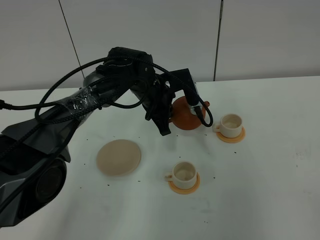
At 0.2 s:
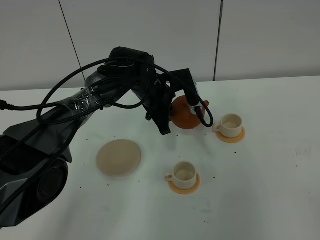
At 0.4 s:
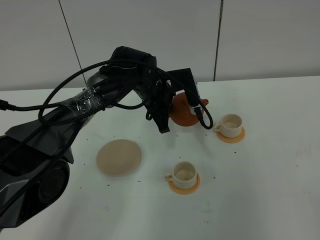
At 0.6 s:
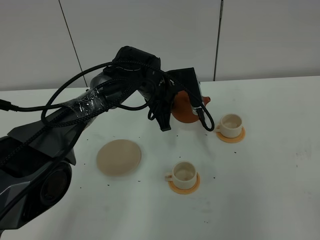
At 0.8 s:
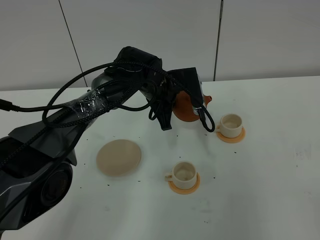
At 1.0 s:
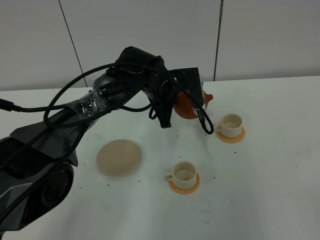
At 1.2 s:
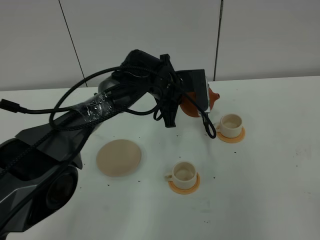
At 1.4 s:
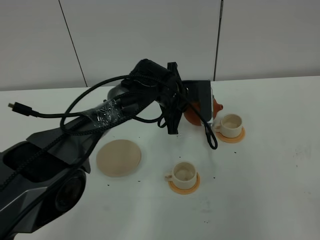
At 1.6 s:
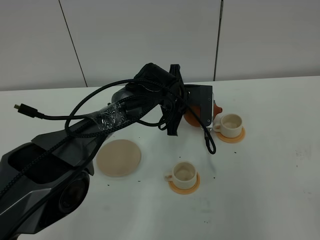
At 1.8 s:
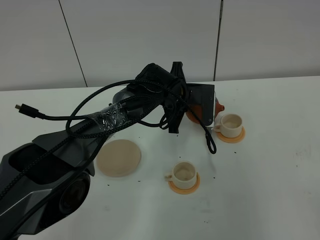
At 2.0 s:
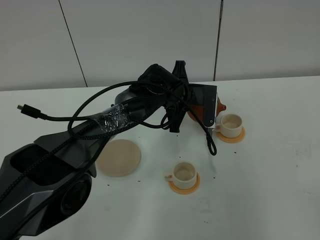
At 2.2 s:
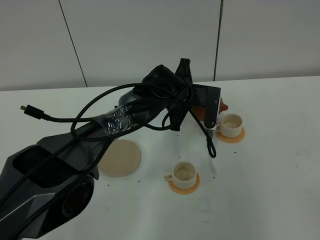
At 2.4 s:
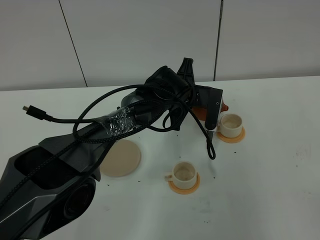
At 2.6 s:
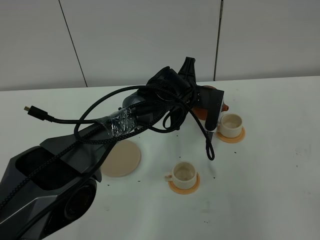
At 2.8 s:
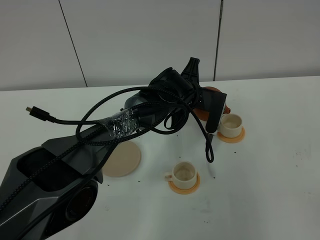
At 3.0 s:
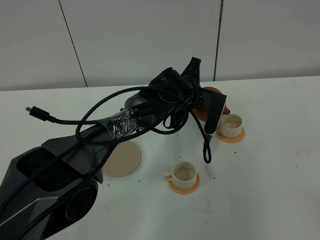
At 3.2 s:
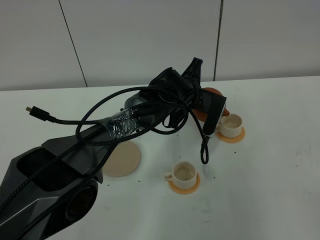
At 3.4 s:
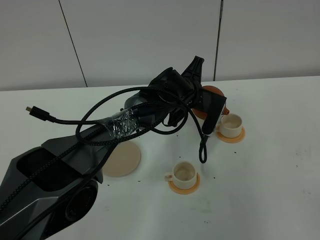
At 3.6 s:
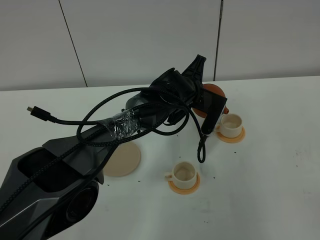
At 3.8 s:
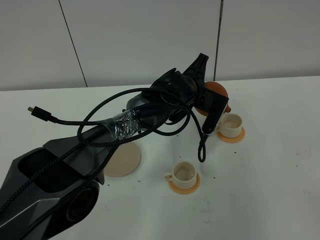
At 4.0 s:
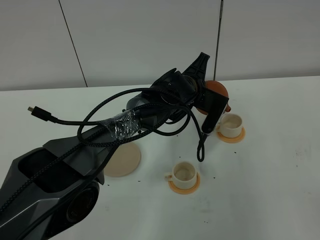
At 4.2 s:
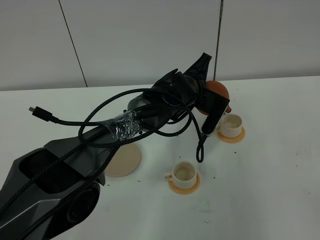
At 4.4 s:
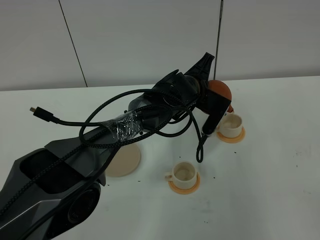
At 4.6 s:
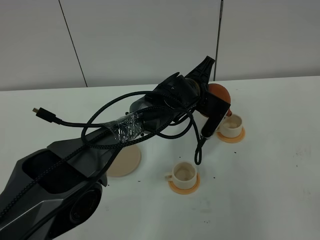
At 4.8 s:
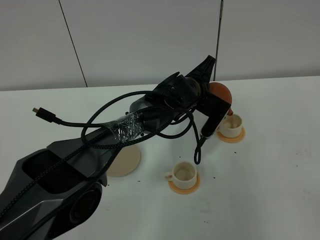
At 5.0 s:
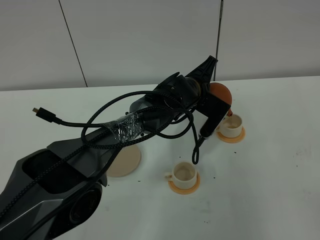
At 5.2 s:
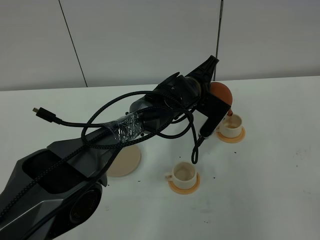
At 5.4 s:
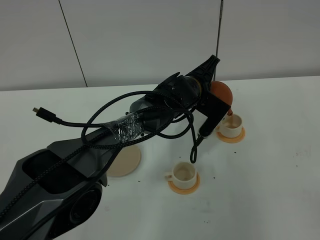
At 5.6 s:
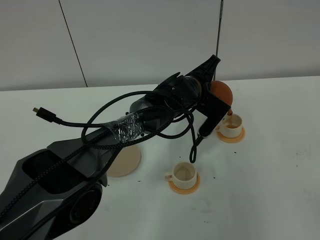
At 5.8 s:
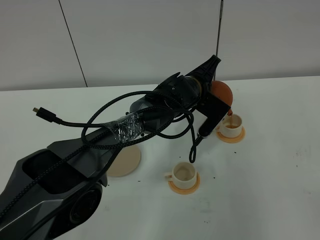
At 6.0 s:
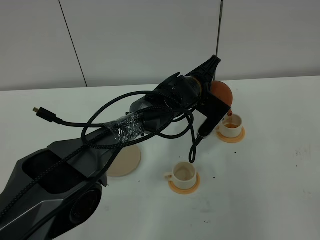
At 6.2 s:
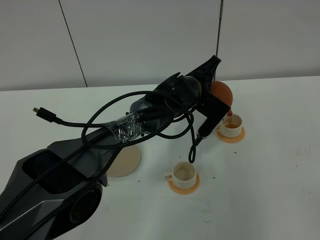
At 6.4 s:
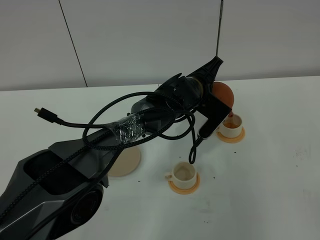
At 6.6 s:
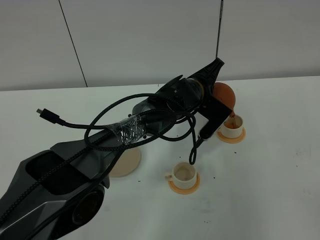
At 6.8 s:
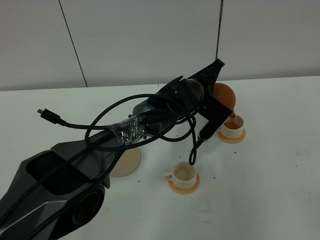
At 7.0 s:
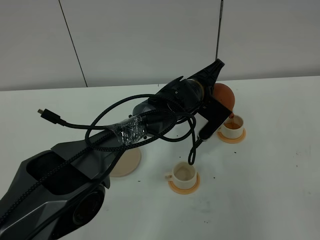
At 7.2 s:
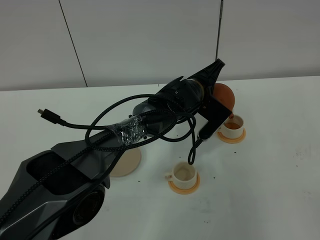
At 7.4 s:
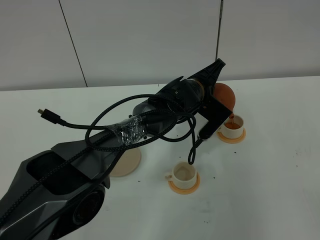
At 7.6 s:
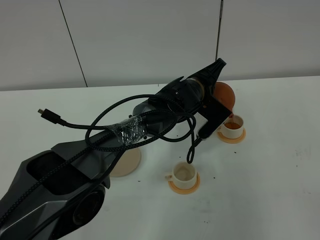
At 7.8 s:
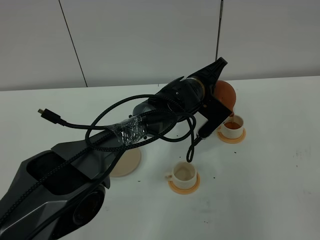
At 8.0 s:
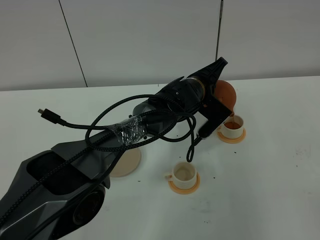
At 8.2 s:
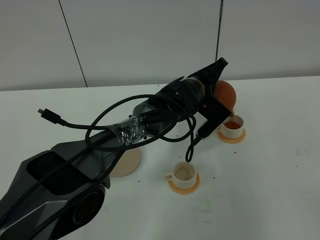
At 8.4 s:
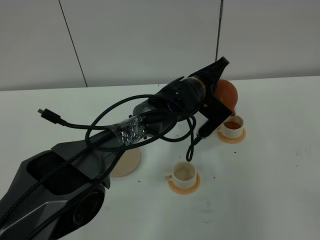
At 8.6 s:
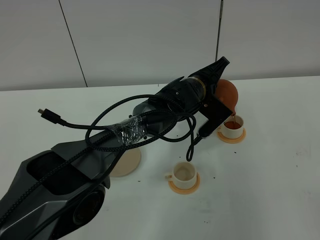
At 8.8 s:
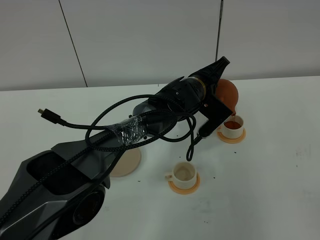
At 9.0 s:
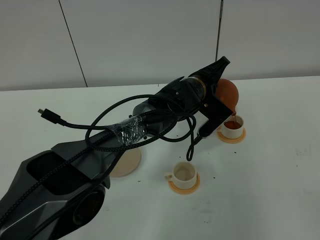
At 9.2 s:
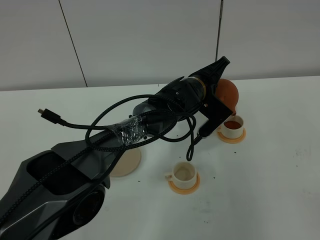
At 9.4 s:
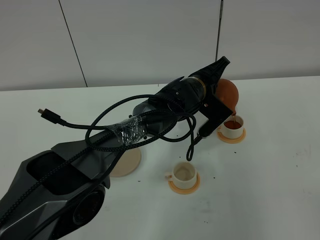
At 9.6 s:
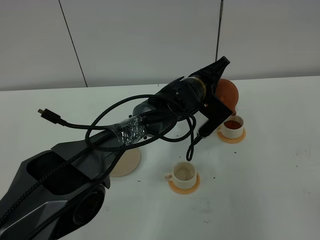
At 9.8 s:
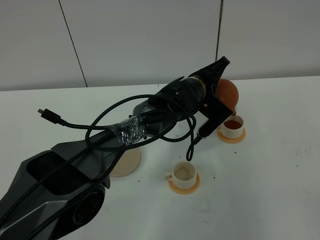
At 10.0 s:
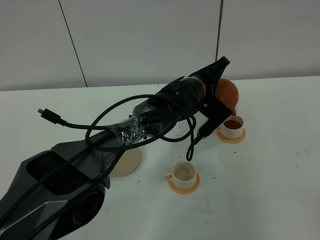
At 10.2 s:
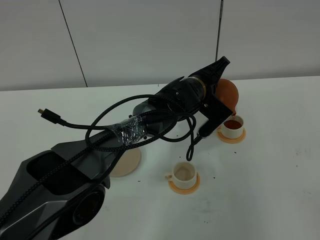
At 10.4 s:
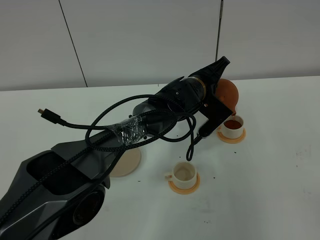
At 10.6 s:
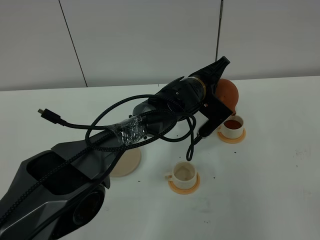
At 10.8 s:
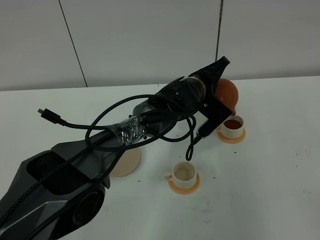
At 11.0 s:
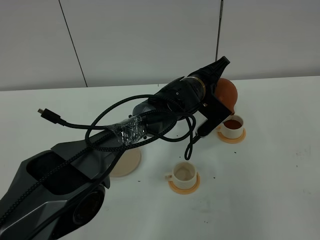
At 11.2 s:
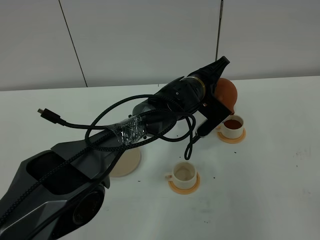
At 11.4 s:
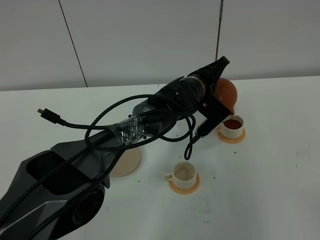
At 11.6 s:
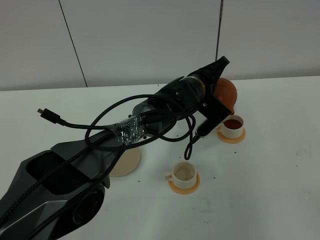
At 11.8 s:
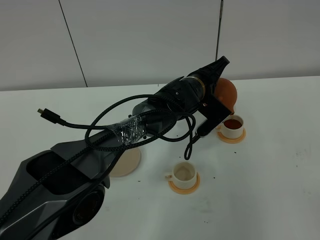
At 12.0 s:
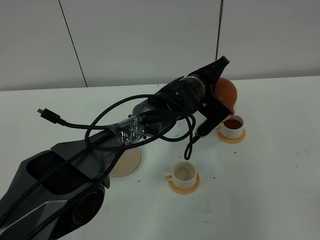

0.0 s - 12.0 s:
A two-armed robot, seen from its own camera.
Task of the whole recording: grasp the brown teapot and pour the tea into the two white teacups one by one, put the brown teapot back in its original place.
3.0 s - 4.4 s: The grippers move only a little.
4.4 s - 7.6 s: There are only small adjustments of the grippers.
7.6 s - 12.0 s: Both grippers stay about where they are.

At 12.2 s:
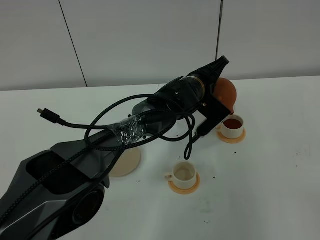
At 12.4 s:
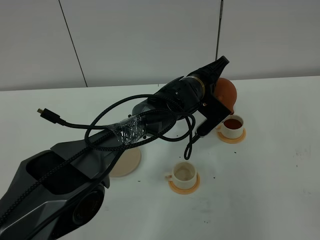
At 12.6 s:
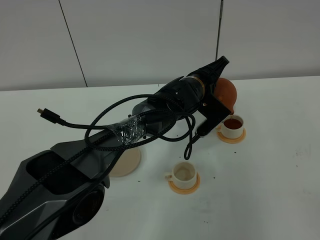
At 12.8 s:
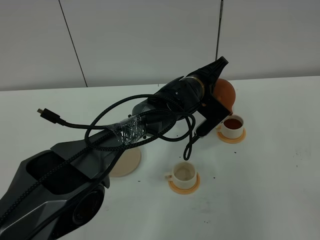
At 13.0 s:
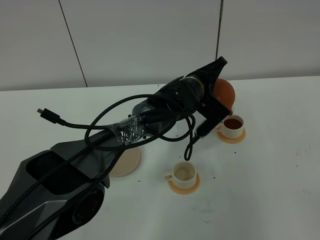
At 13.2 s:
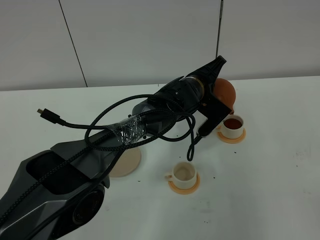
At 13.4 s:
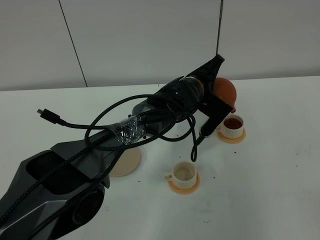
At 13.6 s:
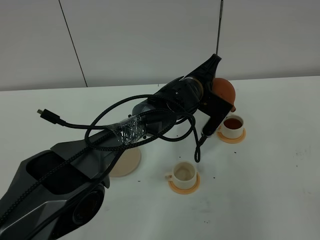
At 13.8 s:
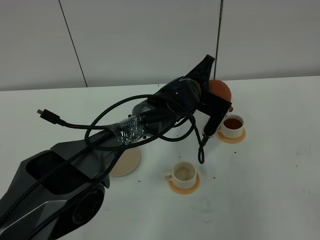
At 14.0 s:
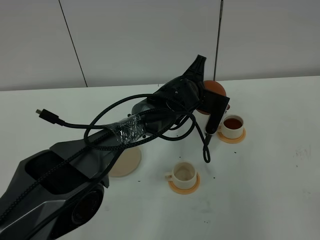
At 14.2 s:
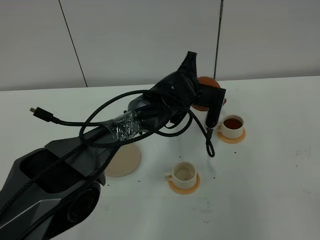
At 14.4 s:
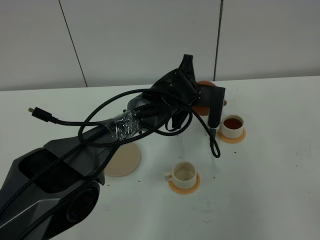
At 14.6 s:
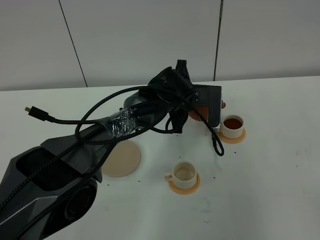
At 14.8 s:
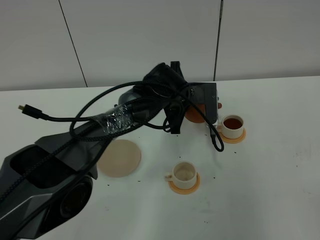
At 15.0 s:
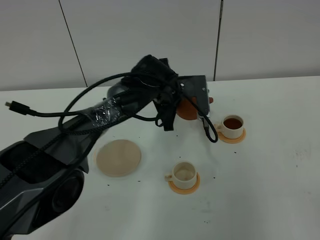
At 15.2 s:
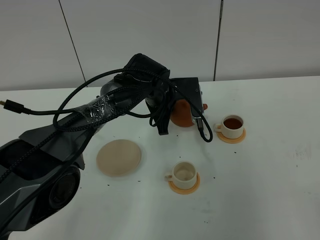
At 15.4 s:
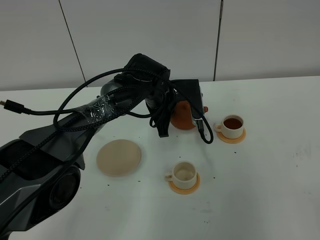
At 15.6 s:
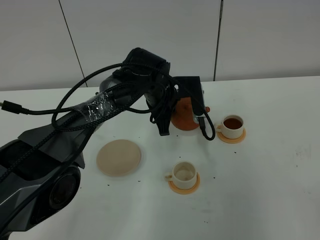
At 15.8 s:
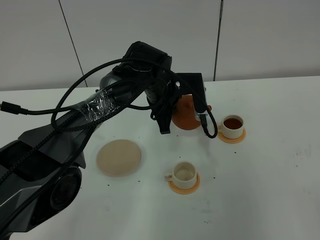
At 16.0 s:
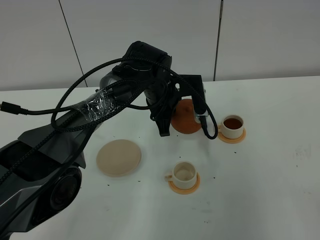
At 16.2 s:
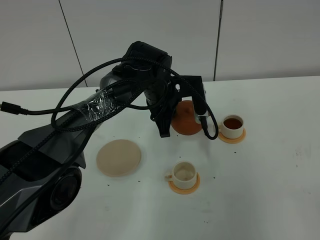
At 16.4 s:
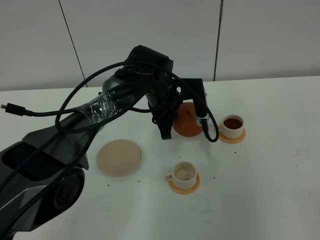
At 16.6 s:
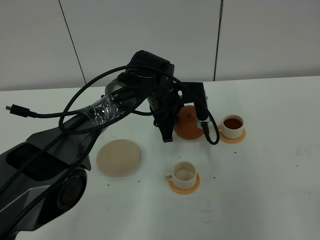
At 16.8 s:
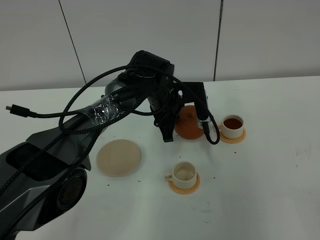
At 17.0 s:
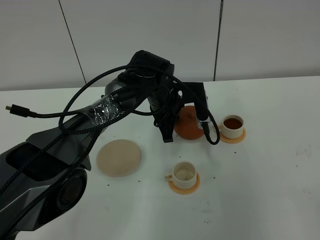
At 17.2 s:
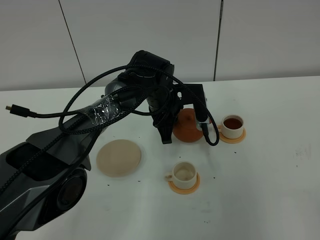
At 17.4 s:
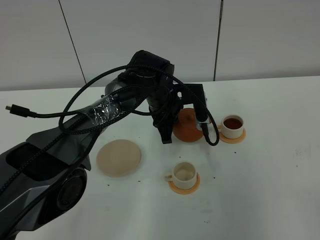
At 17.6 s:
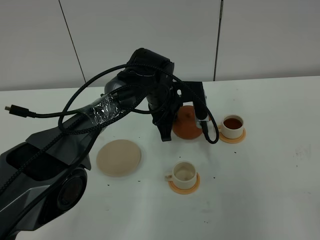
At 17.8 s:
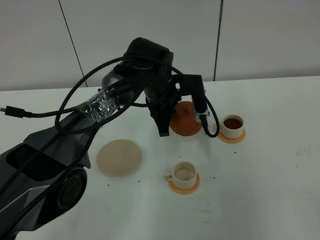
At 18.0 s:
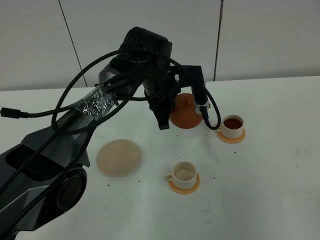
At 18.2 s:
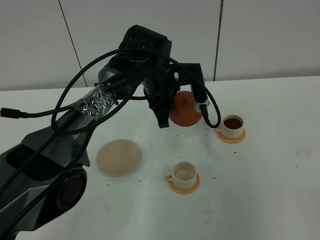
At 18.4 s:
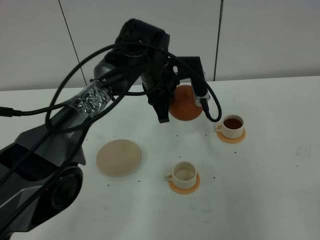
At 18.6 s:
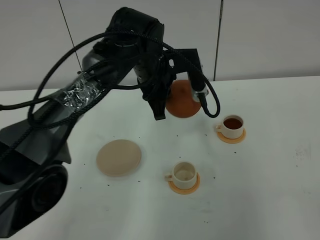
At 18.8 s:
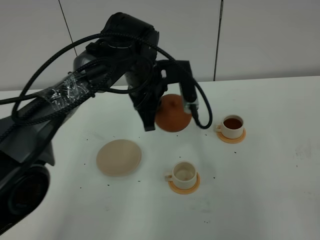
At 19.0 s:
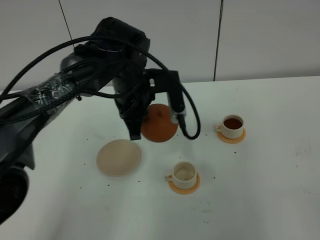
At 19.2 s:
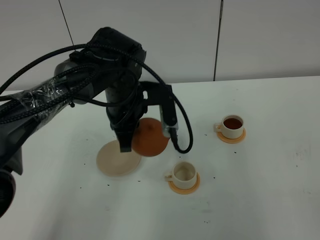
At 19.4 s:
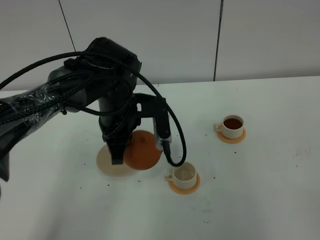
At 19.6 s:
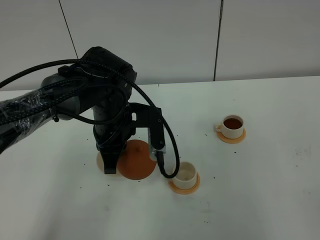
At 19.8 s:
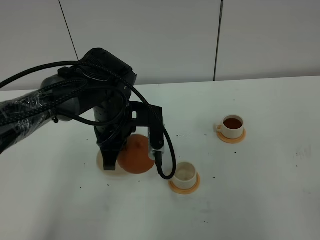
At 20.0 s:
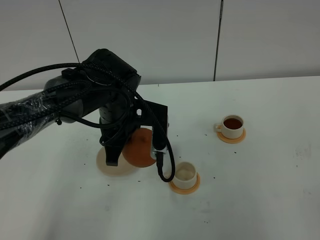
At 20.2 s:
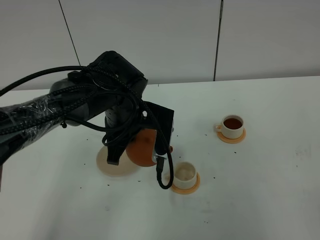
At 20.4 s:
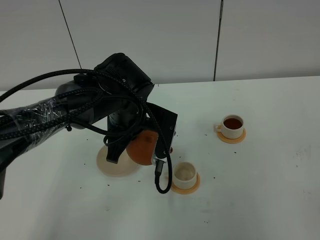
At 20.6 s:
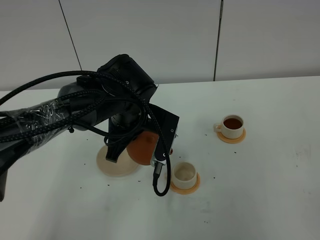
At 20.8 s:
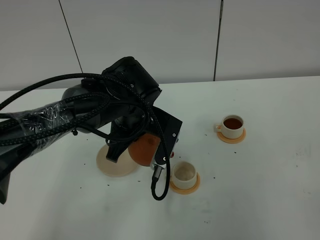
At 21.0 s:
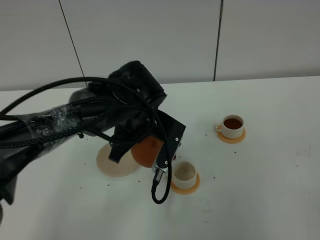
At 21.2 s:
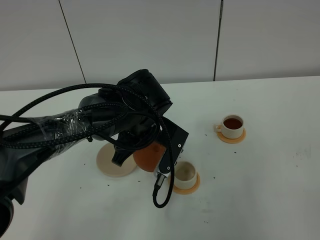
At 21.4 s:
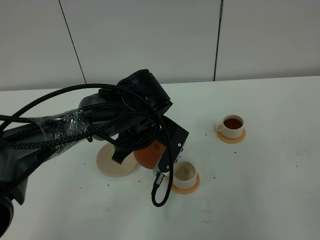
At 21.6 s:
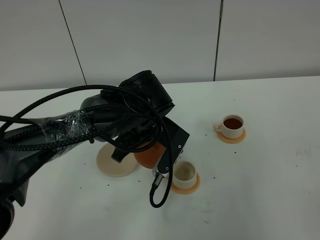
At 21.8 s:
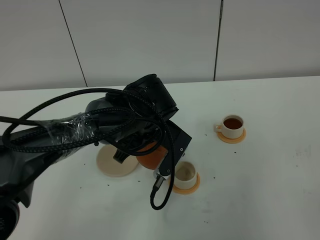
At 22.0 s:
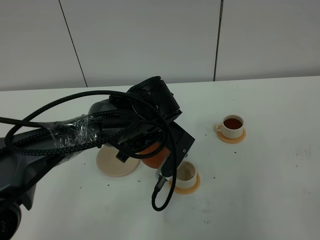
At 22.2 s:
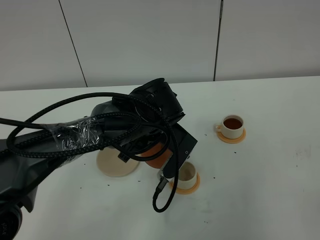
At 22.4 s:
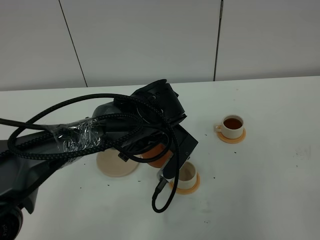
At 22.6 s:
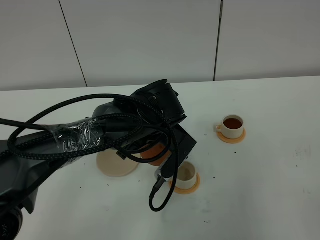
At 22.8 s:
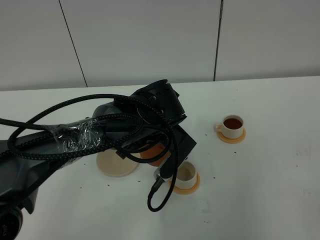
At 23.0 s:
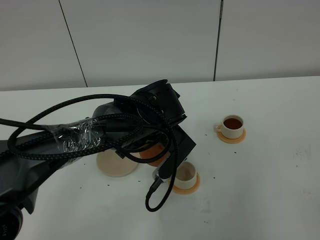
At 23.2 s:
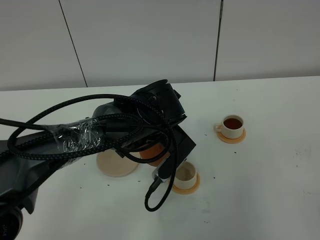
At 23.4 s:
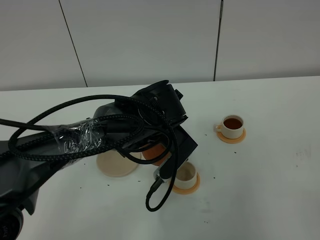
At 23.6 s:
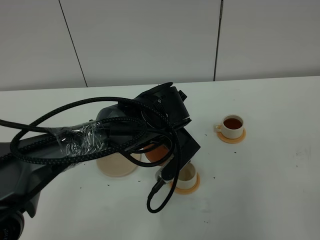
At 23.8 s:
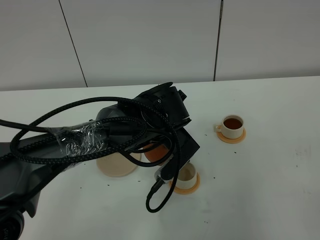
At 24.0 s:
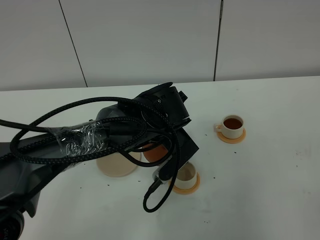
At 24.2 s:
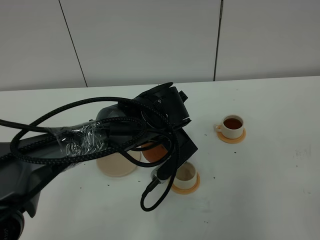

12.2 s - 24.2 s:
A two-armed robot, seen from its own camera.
Task of the whole recording: grasp the brown teapot and pour the tea into the two white teacups one by one, put the brown teapot back in its original place.
12.2 s - 13.8 s: The grippers stay close to where they were, moving slightly.
13.8 s - 15.2 s: The left gripper is displaced to the left by some 5 cm.
15.2 s - 16.6 s: The grippers make only small movements.
16.6 s - 18.2 s: The left gripper shifts roughly 5 cm upward.
18.2 s - 19.8 s: The left gripper heads backward and to the left, covering roughly 10 cm.
19.8 s - 21.2 s: The left gripper moves to the right, approximately 5 cm.
21.2 s - 22.6 s: The grippers move only a little.
22.6 s - 24.2 s: The grippers stay close to where they were, moving slightly.
